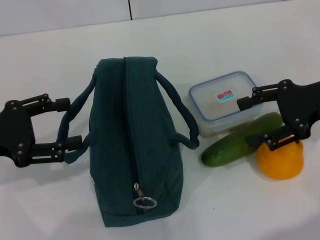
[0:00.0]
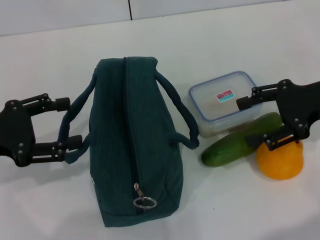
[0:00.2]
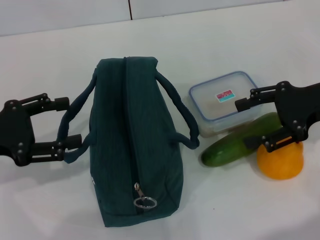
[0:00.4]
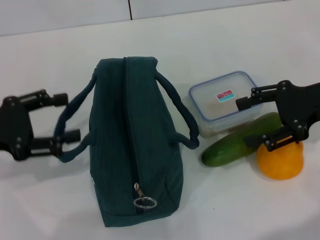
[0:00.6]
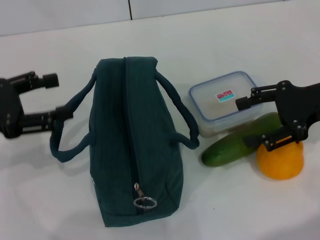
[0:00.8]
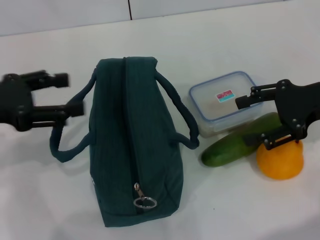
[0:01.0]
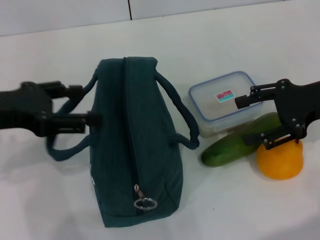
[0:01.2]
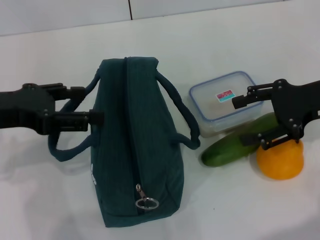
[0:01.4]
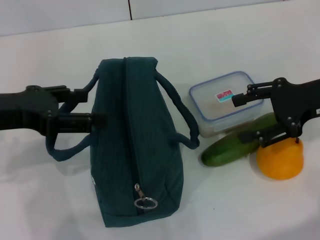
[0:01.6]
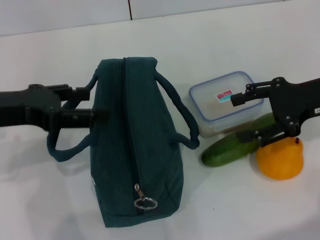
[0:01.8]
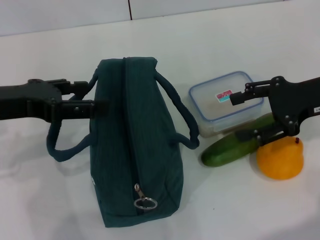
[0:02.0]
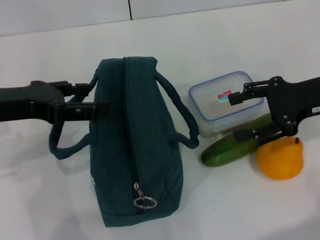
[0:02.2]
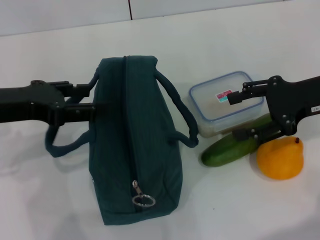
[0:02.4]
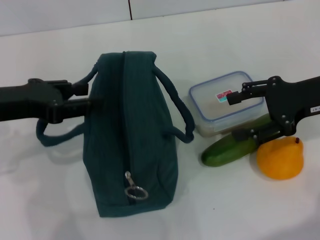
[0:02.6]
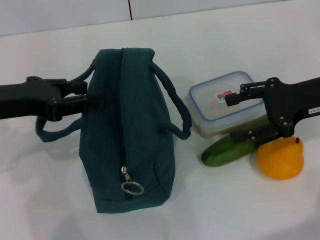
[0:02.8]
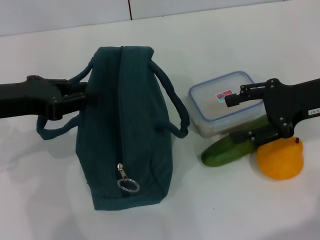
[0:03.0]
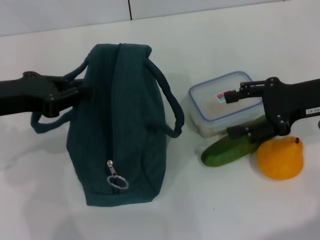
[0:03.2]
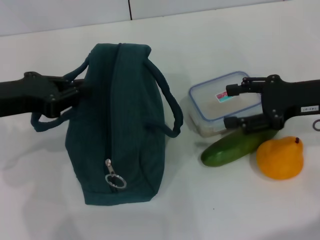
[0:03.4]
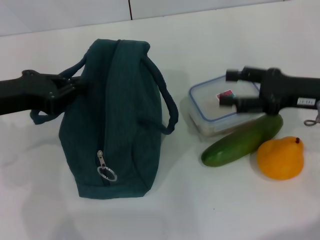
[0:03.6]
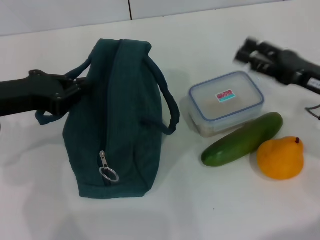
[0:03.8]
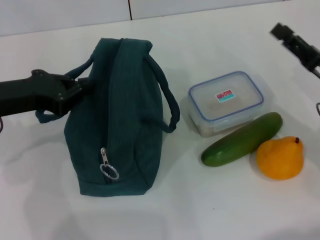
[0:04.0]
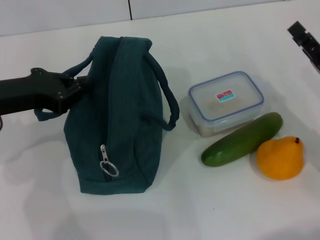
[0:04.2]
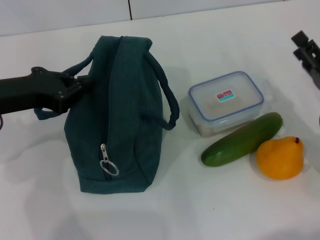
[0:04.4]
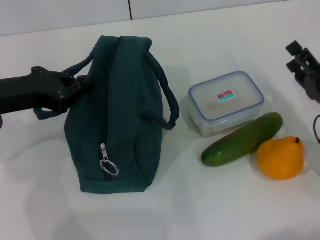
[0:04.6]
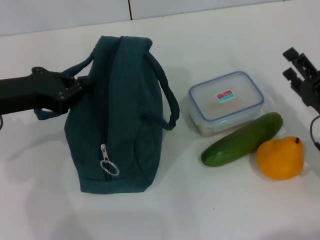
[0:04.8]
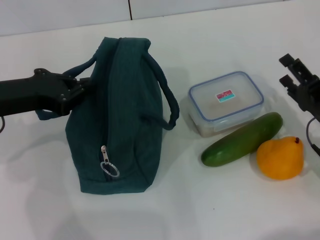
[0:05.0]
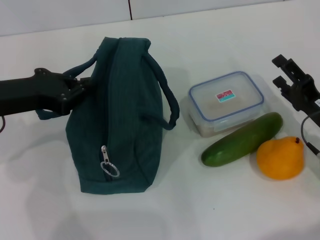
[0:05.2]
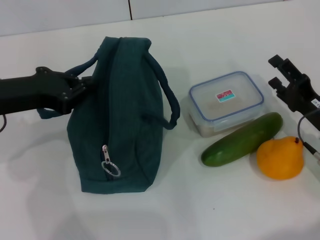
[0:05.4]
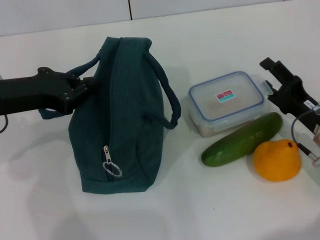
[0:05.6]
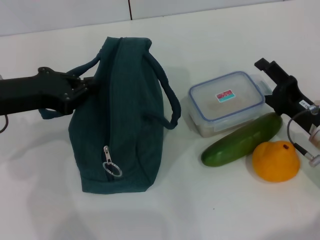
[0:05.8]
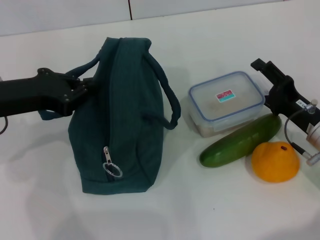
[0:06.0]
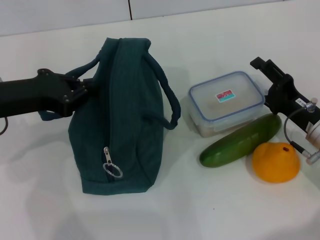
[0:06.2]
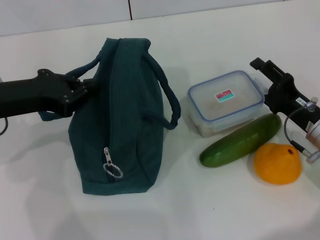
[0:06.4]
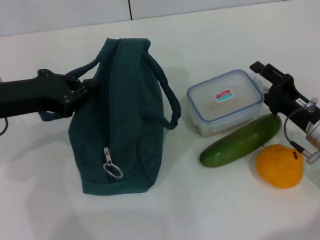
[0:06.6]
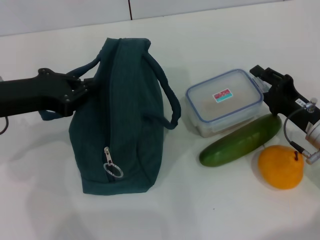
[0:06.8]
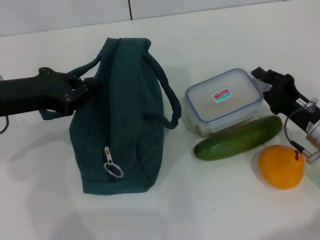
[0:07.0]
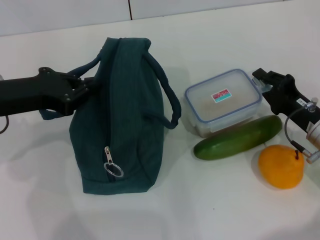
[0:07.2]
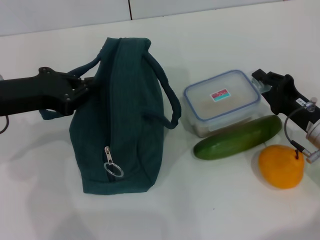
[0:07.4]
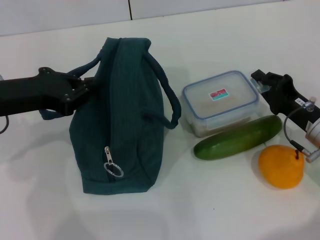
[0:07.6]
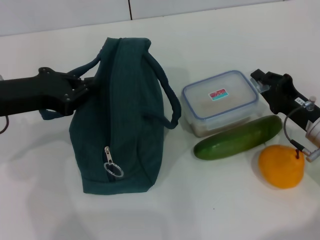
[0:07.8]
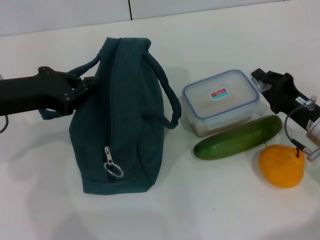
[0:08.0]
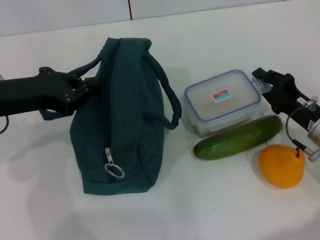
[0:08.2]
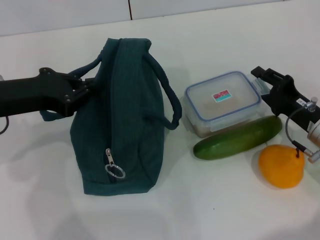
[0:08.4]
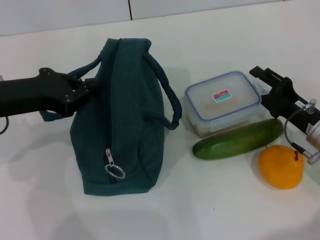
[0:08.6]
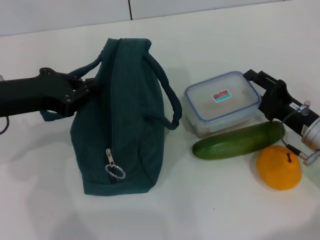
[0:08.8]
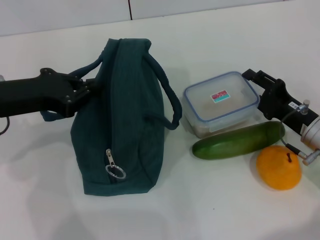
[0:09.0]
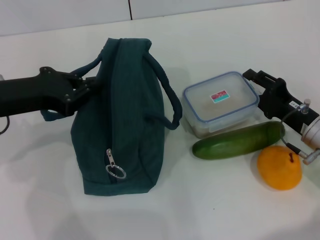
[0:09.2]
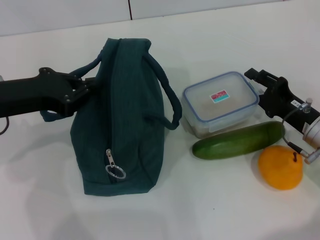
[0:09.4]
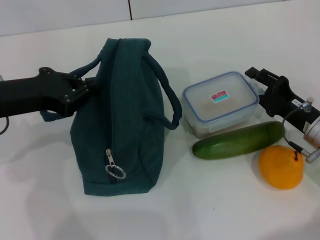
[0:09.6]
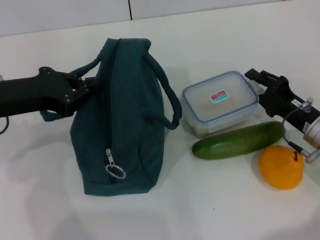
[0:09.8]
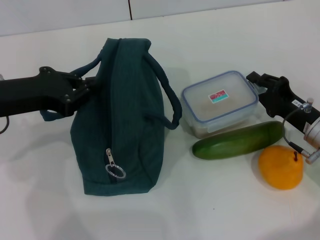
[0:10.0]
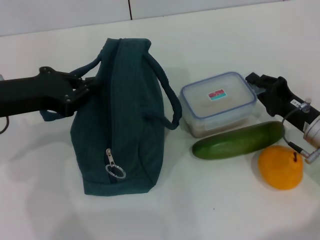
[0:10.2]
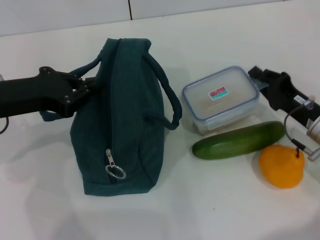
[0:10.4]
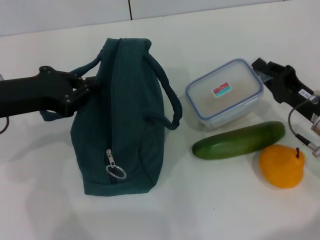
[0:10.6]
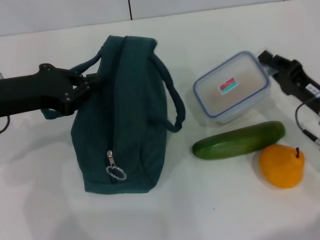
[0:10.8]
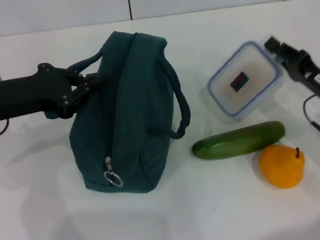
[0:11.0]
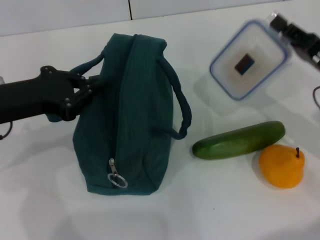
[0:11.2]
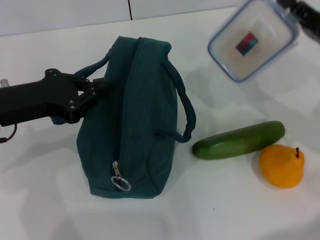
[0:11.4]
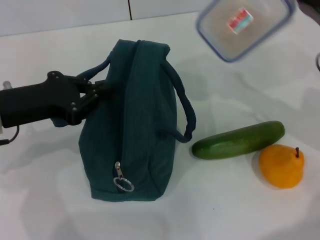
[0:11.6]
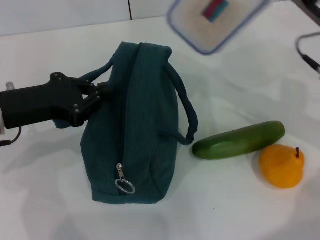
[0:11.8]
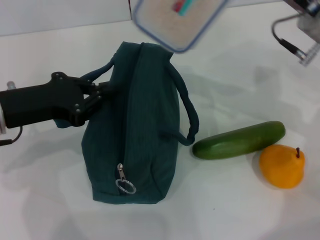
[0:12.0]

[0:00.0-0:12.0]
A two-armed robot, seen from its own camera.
Step, 0:00.0 to 0:05.0: Hold the lunch bag with your left hand.
Step, 0:05.4 to 0:10.2: Pick up the lunch box with your right hand.
0:00.0 to 0:01.6: The left gripper travels upward by about 5 cm.
0:01.6 to 0:03.0: The left gripper closes.
0:03.0 to 0:04.4: The right gripper is displaced downward and backward by about 15 cm. The left gripper closes up.
0:06.0 to 0:07.6: The right gripper closes up.
0:07.6 to 0:09.0: The right gripper opens up.
0:09.0 to 0:10.4: The right gripper closes.
0:10.4 to 0:12.0: The right gripper shifts some 15 cm upward and forward.

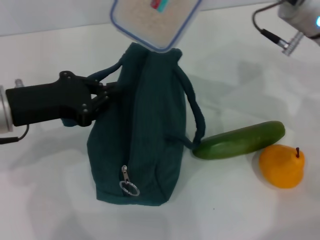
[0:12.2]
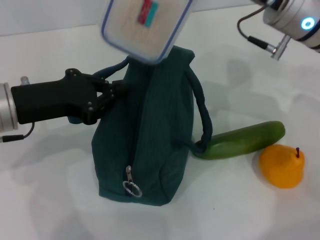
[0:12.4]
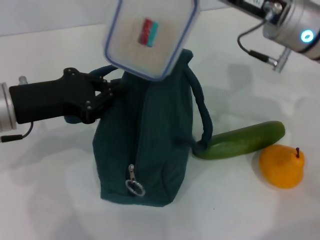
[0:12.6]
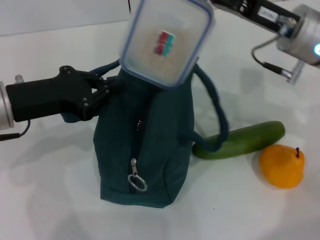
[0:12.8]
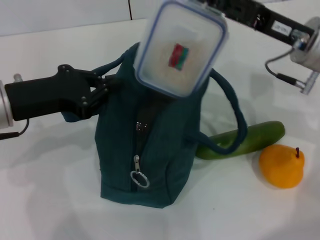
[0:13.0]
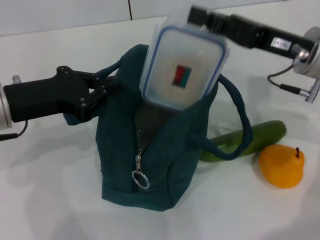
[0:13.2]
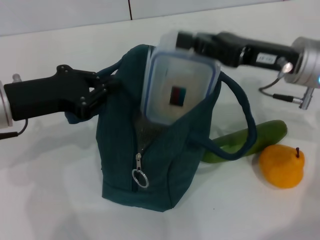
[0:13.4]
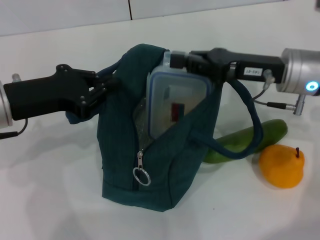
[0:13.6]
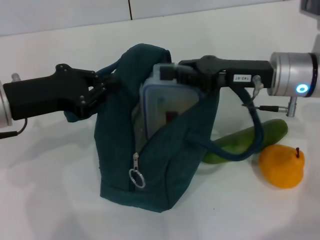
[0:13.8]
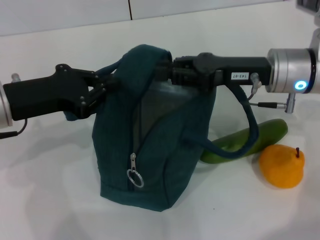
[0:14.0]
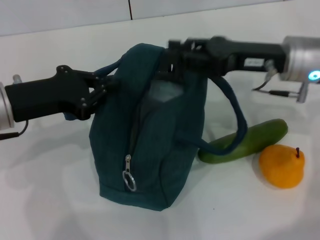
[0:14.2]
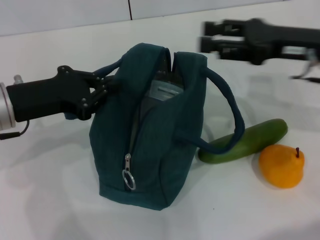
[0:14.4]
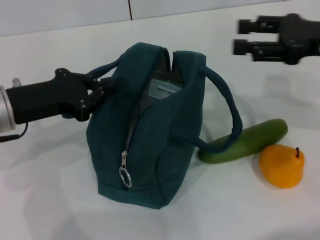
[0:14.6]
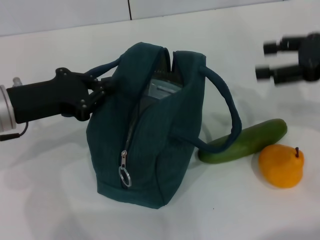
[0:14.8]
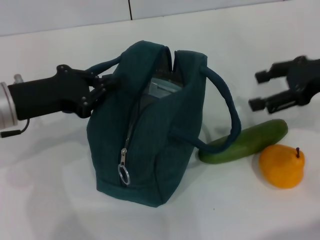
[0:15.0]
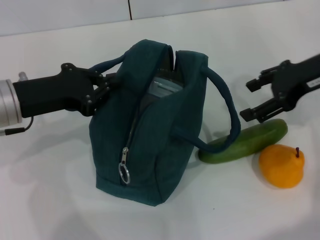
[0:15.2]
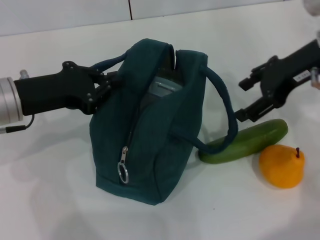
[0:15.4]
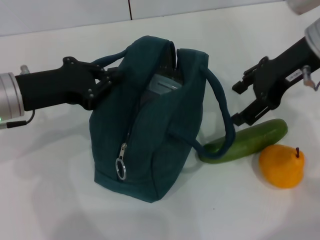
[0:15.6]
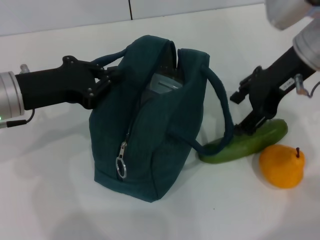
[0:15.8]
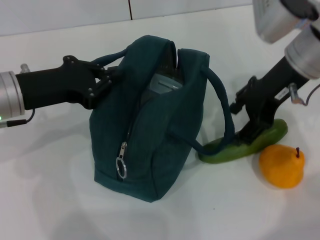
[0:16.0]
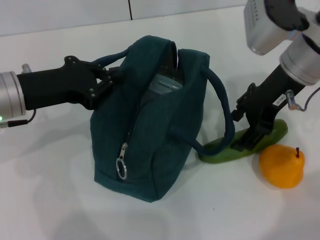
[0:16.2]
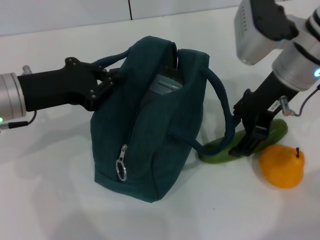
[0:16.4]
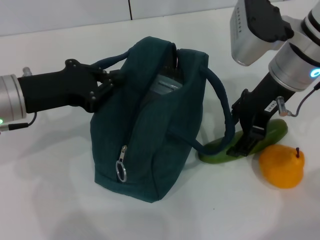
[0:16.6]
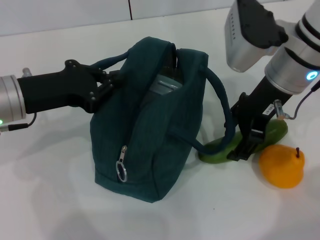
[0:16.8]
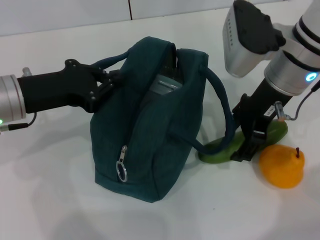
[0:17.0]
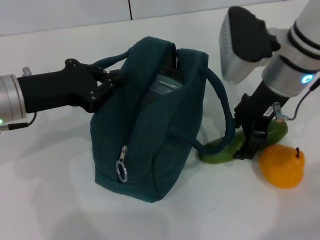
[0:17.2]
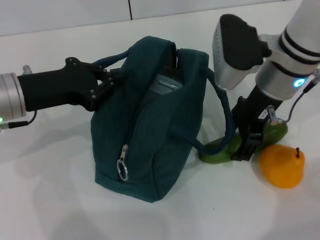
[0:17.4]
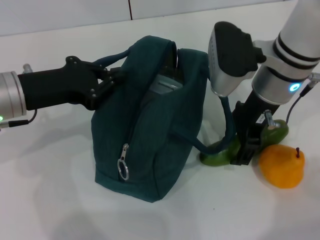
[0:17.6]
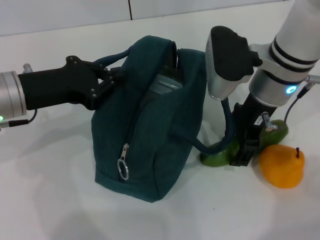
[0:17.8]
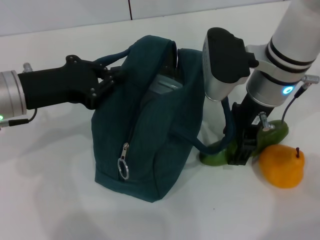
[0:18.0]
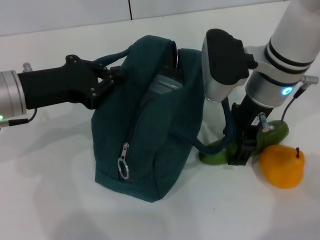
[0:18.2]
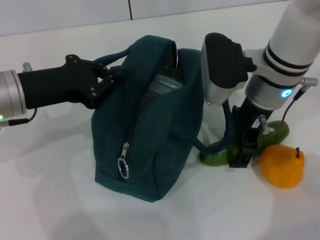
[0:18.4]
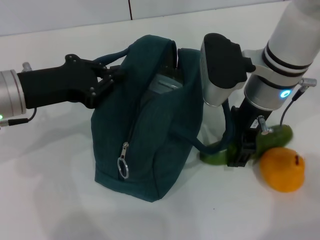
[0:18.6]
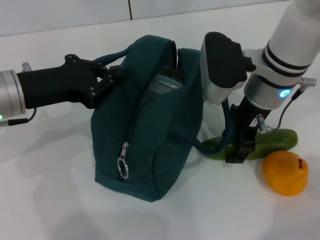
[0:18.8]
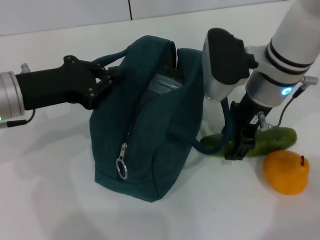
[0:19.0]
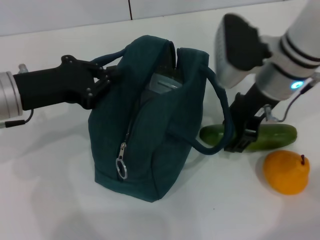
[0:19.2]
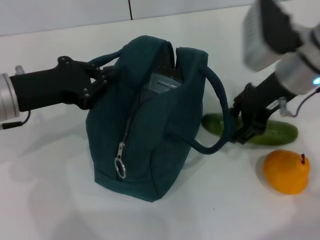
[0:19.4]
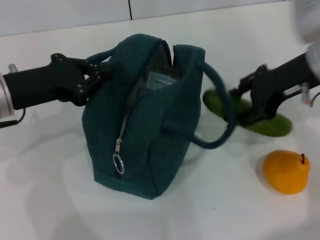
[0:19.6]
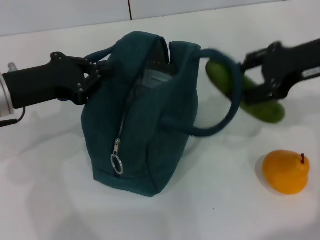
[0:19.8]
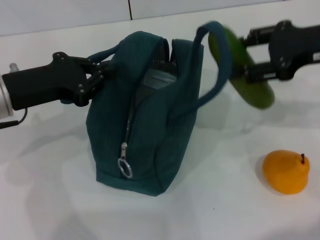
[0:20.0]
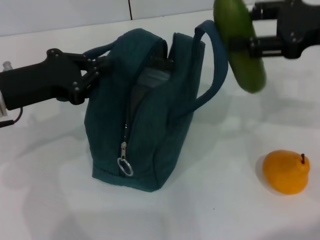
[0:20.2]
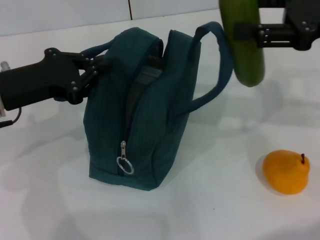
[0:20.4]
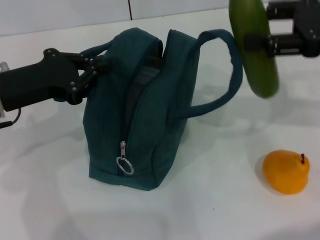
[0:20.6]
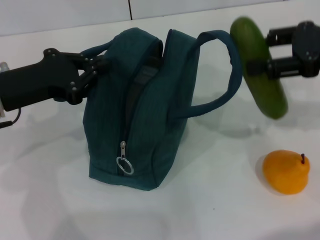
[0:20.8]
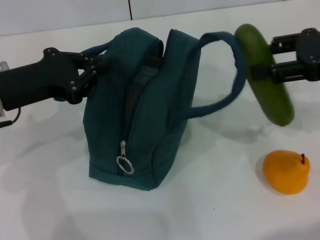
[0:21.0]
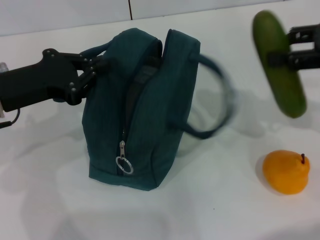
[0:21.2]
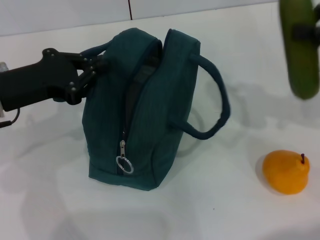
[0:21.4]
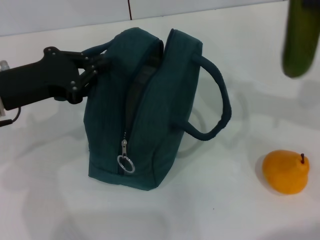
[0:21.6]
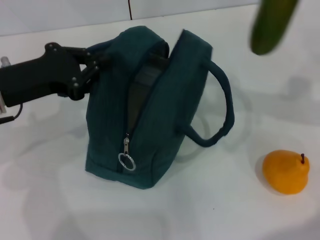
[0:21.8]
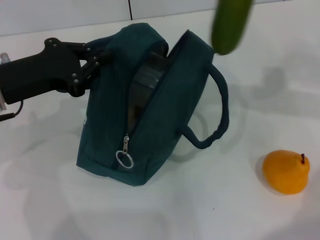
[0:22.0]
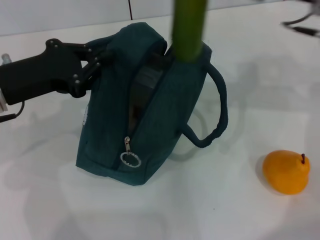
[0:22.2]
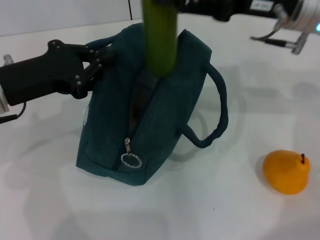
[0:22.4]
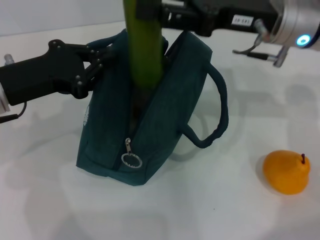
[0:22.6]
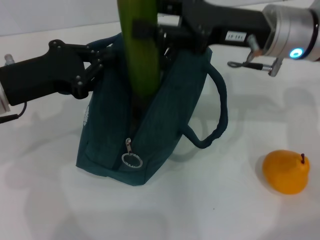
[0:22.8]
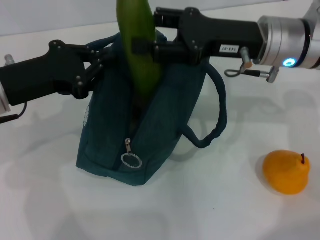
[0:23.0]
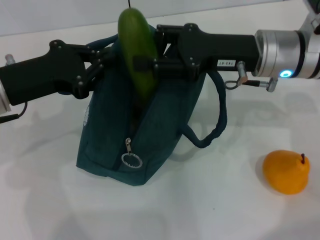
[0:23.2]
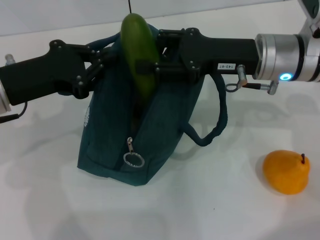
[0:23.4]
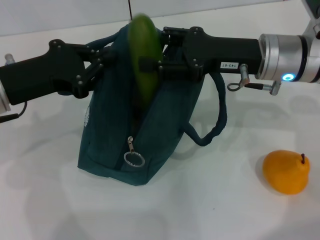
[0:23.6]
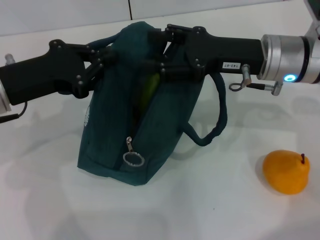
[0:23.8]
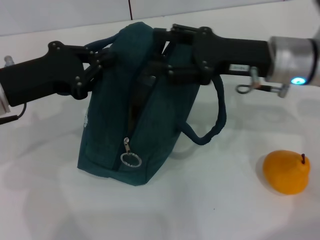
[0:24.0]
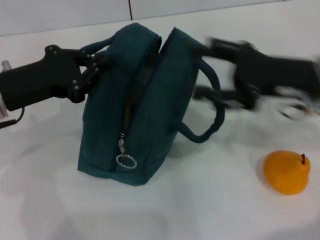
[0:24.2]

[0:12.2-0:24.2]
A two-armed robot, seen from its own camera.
Step, 0:12.2 to 0:14.8: Place the lunch box into the lunch bag with your right hand.
Step, 0:15.0 to 0:18.6: Pick up the cucumber with your right hand.
Step, 0:18.8 to 0:23.8: Put the cucumber into the lunch bag with your right hand.
0:12.2 to 0:13.8: The right gripper shifts approximately 5 cm downward.
0:13.8 to 0:15.2: The right gripper moves to the right and upward, approximately 10 cm, and opens up.
0:15.2 to 0:16.6: The right gripper moves to the left, about 10 cm.
0:16.6 to 0:18.2: The grippers stay close to where they were, moving slightly.
0:18.2 to 0:19.8: The right gripper goes roughly 15 cm to the right and upward.
0:19.8 to 0:21.2: The right gripper heads to the right, covering approximately 5 cm.
0:21.2 to 0:22.6: The right gripper goes roughly 15 cm to the left and forward.
0:22.6 to 0:24.2: The right gripper moves backward and to the right, approximately 10 cm.
